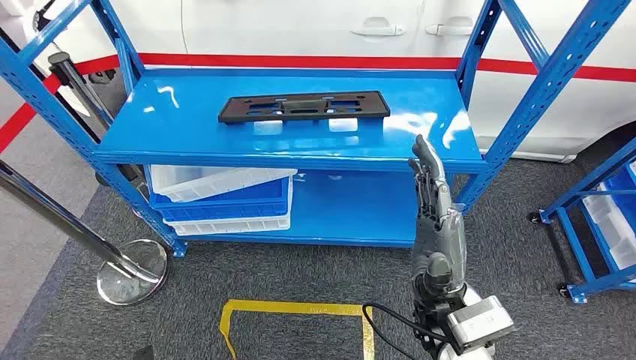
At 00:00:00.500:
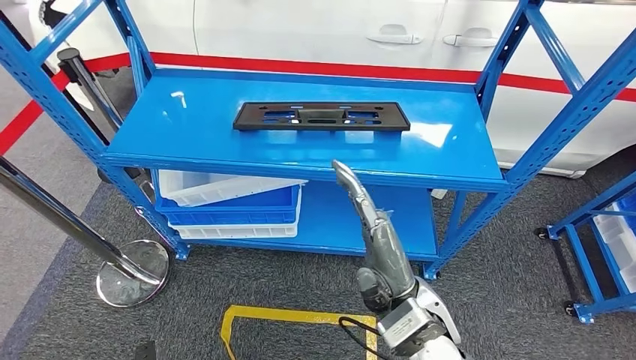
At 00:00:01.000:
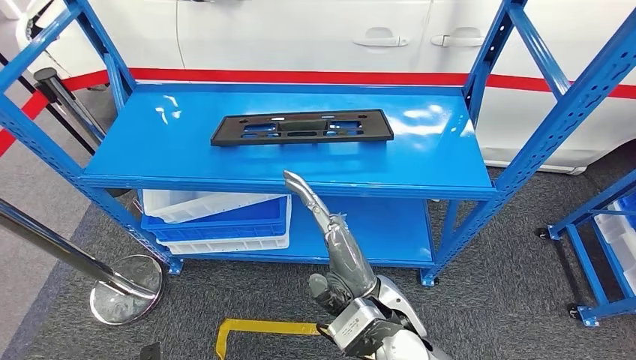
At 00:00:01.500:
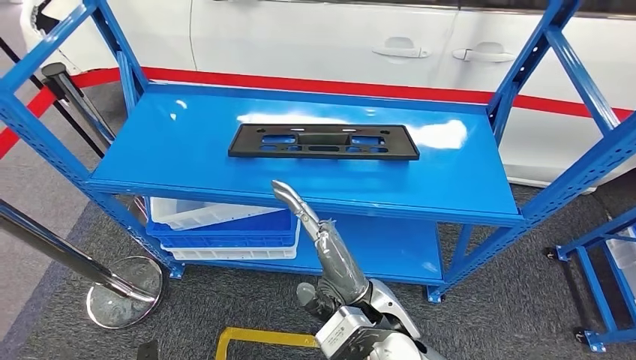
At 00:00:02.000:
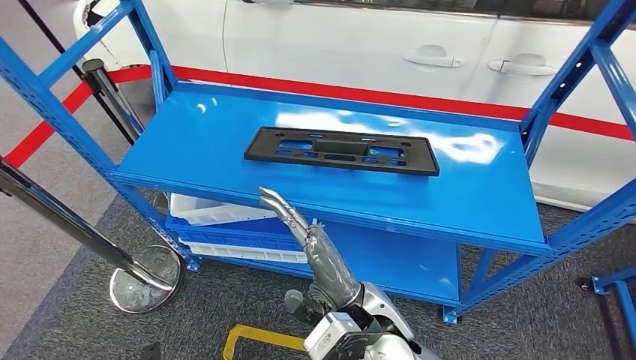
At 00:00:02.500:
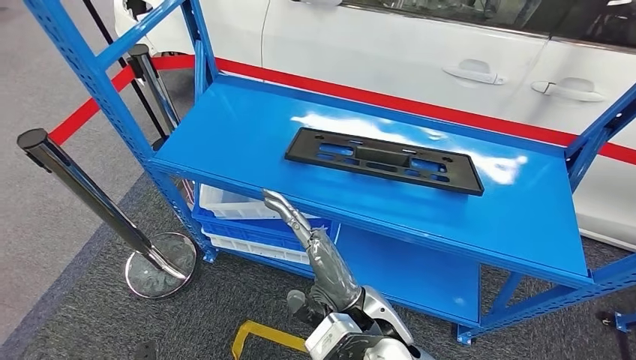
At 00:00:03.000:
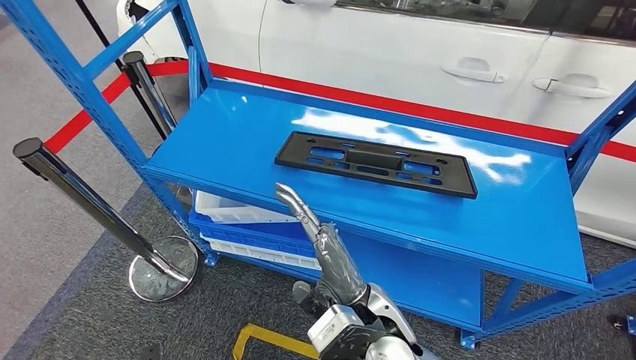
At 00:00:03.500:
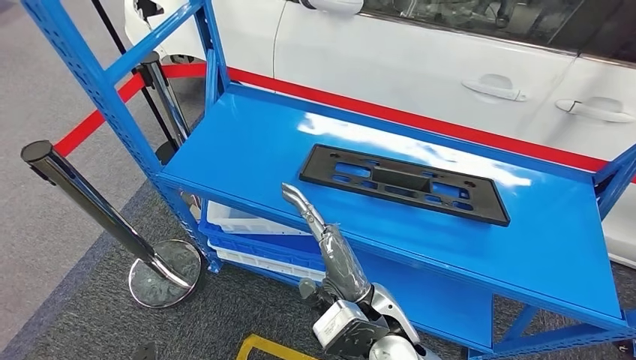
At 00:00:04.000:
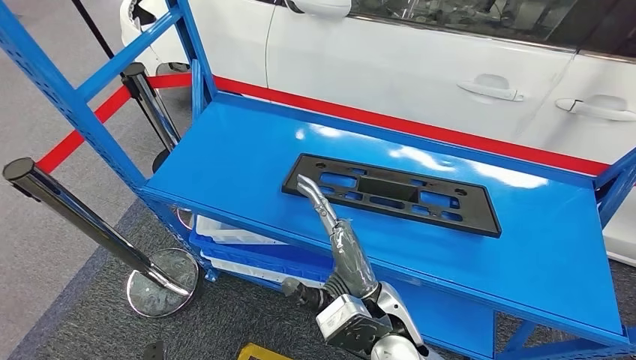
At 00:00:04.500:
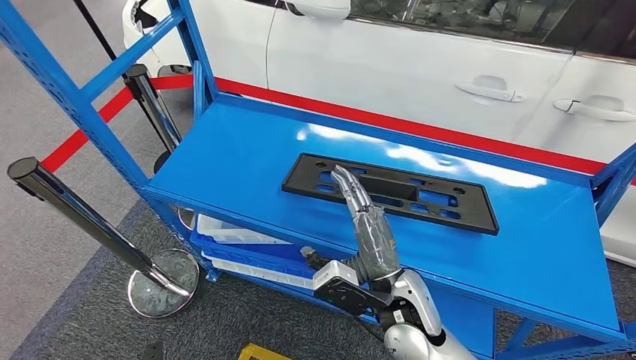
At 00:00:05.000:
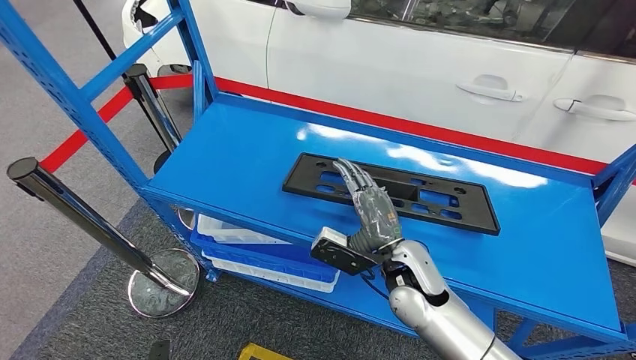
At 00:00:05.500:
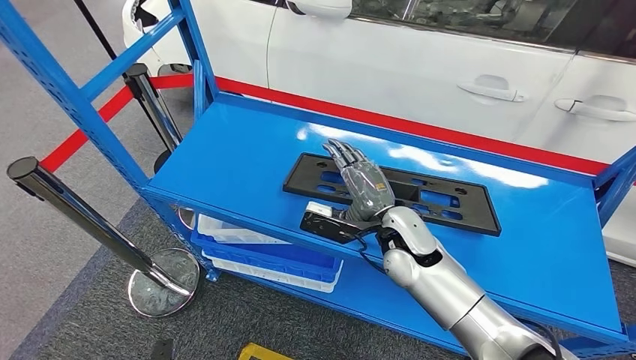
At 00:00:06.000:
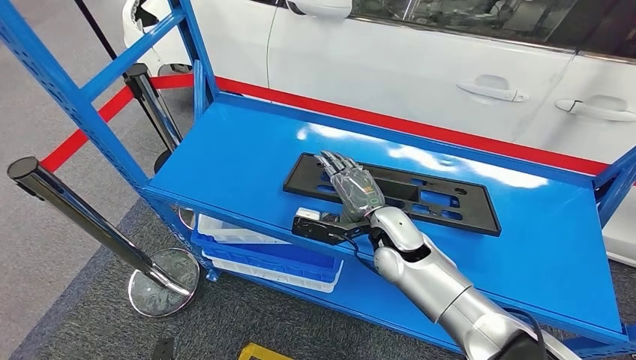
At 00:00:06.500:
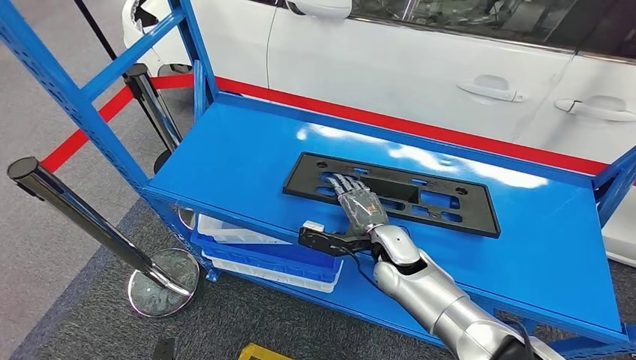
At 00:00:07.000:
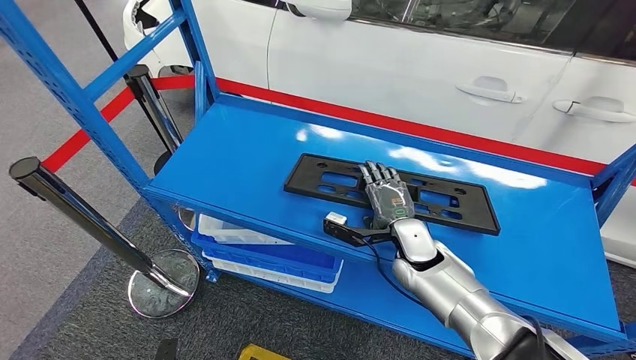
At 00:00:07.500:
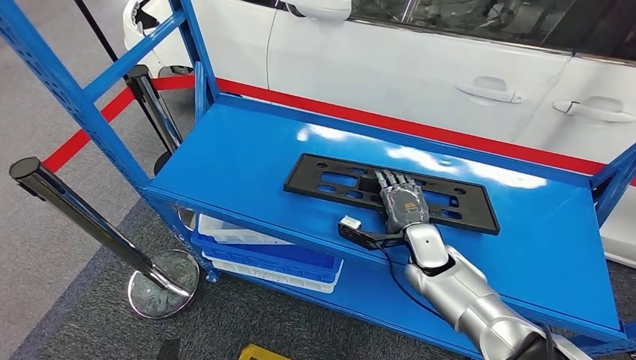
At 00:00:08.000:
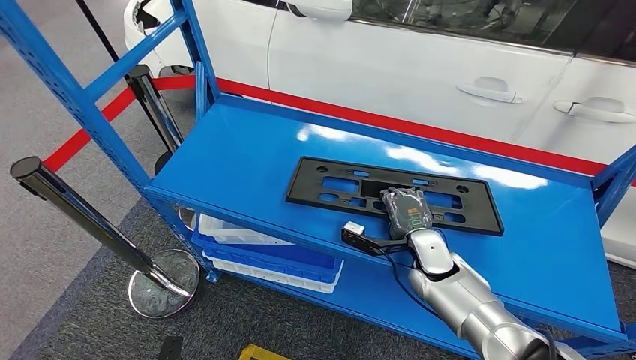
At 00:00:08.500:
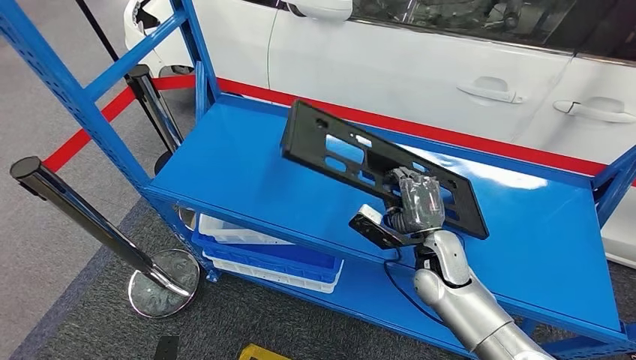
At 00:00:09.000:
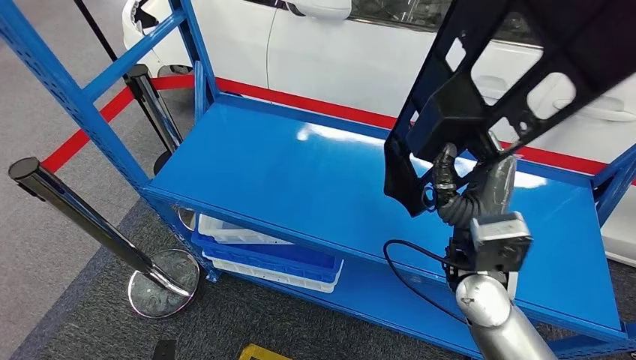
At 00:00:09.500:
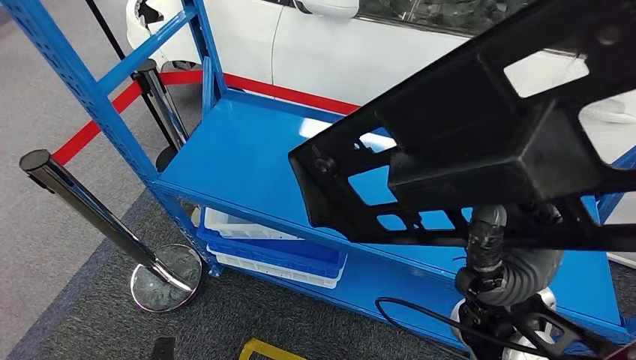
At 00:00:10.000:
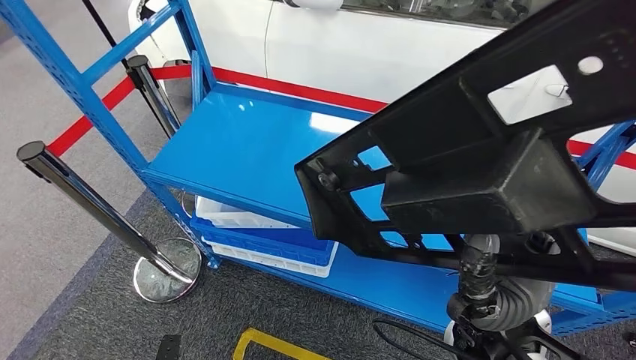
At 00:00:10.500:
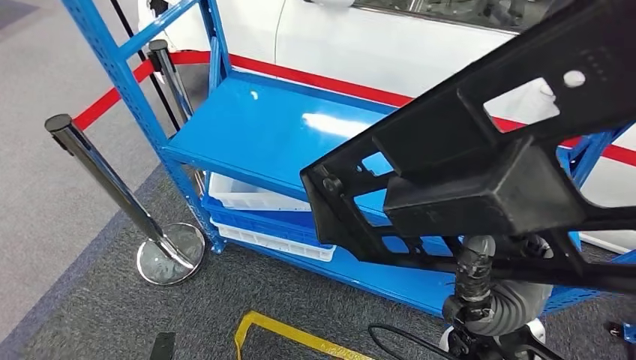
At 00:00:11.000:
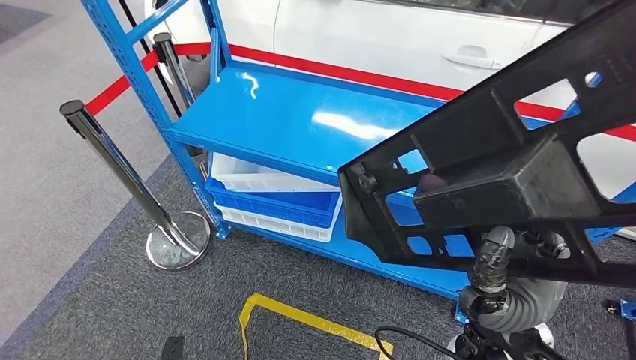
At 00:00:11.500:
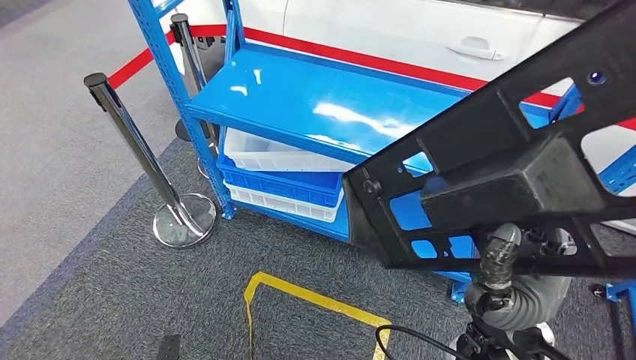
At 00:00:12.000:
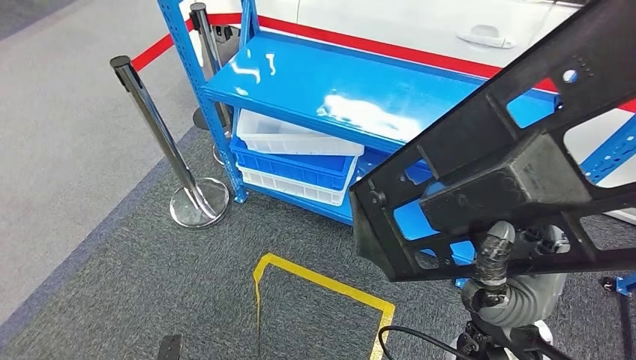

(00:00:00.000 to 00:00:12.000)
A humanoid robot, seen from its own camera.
Step, 00:00:00.000 - 00:00:11.500: Pick up the large material from the shelf.
00:00:04.000 - 00:00:06.000: The right hand is displaced forward by about 15 cm.
00:00:06.000 - 00:00:08.000: The right hand travels to the right and downward by roughly 10 cm.

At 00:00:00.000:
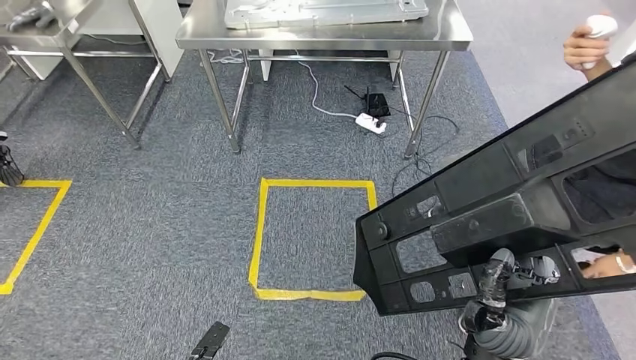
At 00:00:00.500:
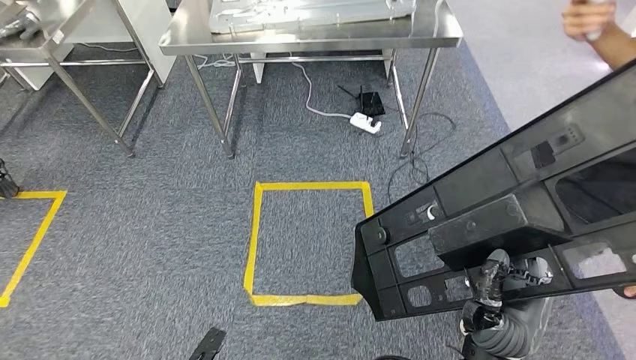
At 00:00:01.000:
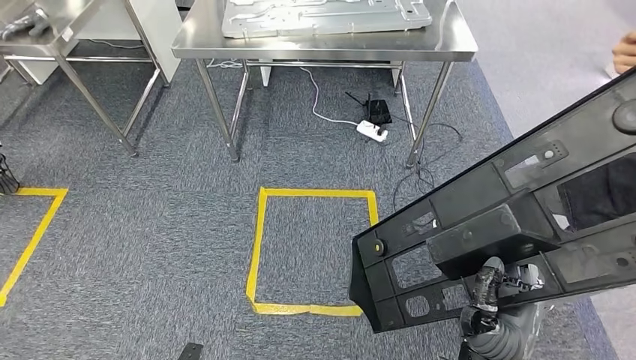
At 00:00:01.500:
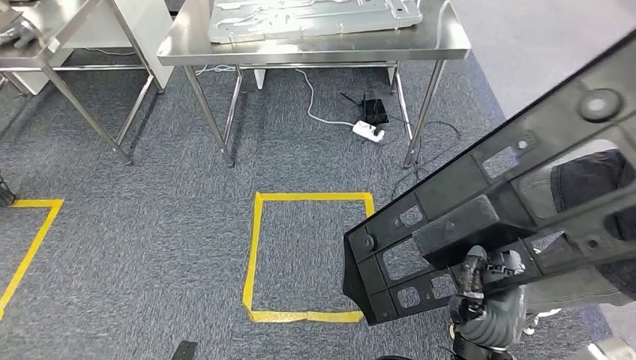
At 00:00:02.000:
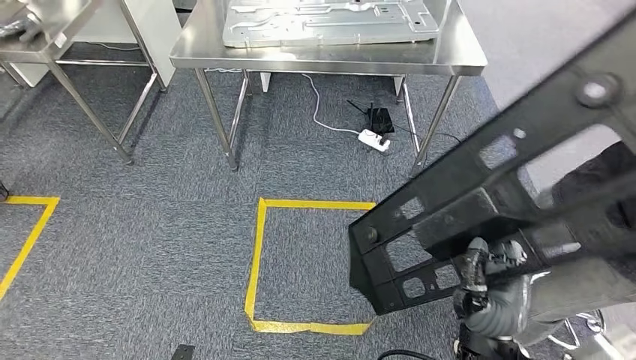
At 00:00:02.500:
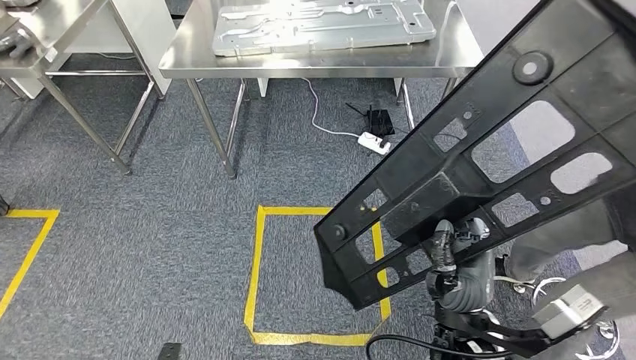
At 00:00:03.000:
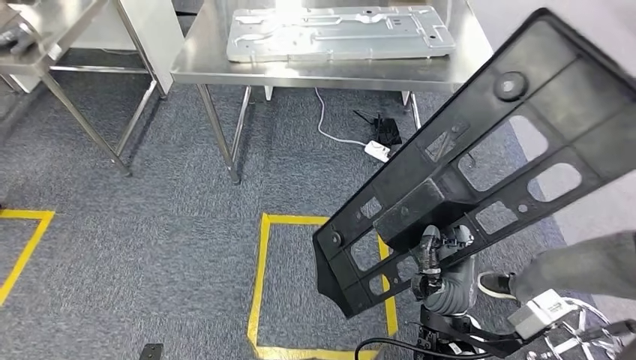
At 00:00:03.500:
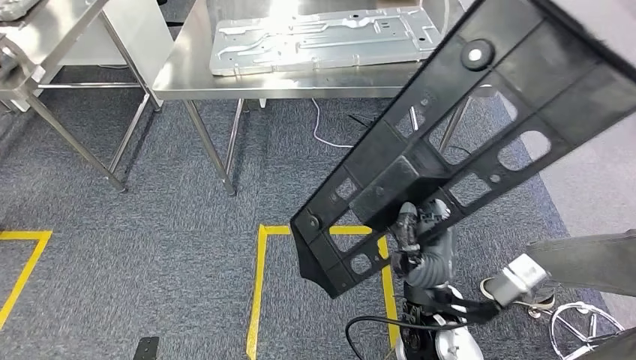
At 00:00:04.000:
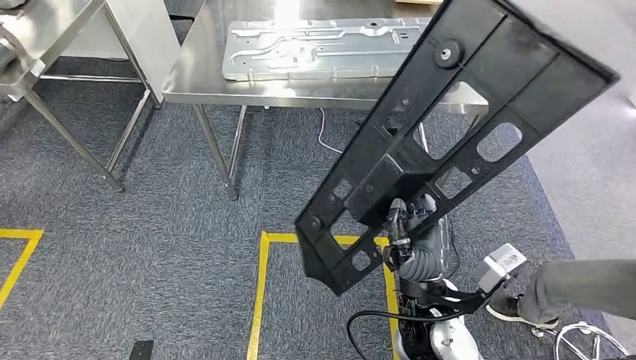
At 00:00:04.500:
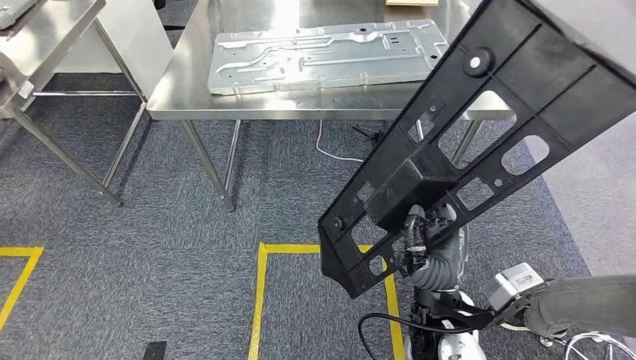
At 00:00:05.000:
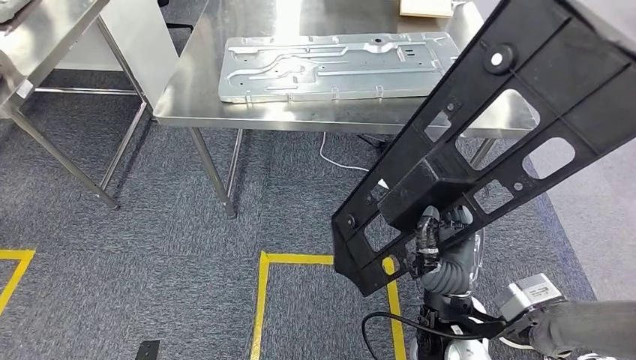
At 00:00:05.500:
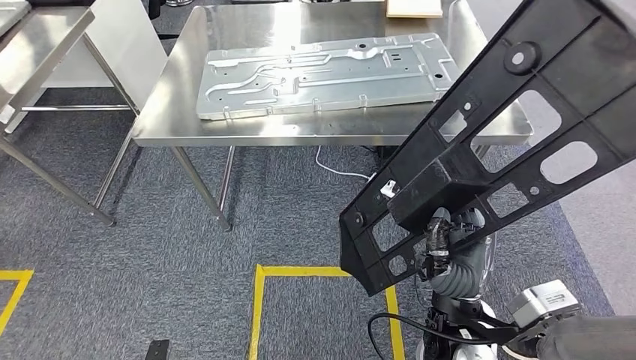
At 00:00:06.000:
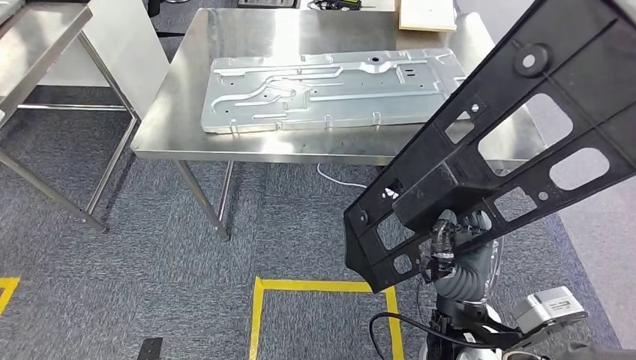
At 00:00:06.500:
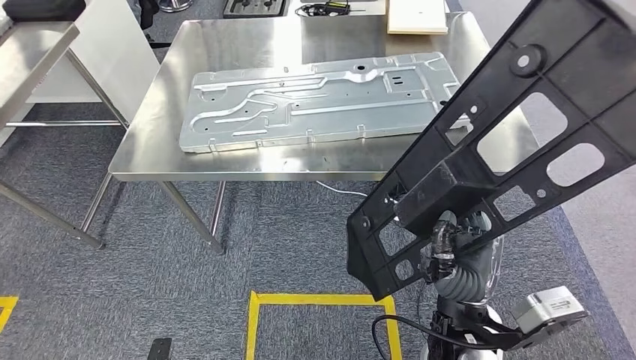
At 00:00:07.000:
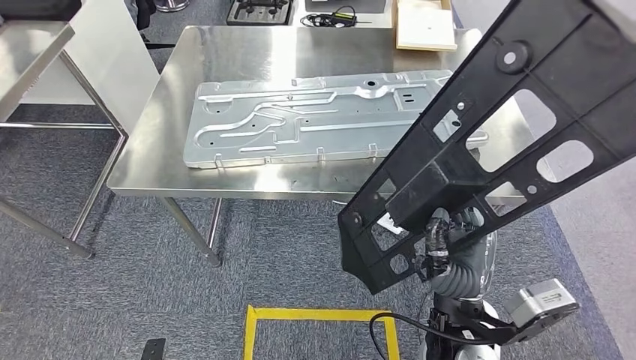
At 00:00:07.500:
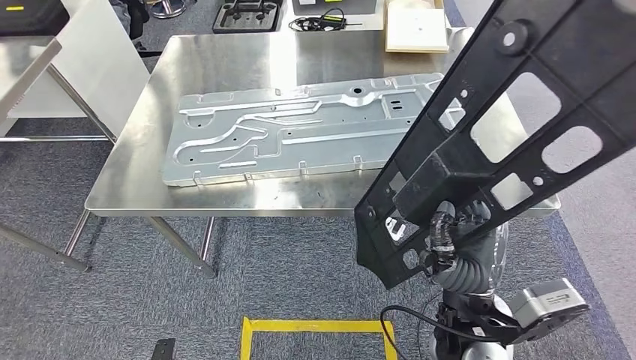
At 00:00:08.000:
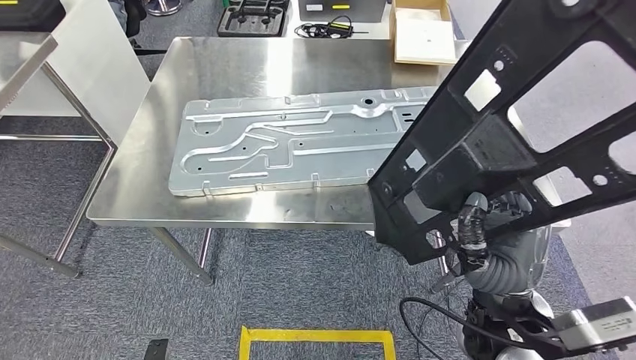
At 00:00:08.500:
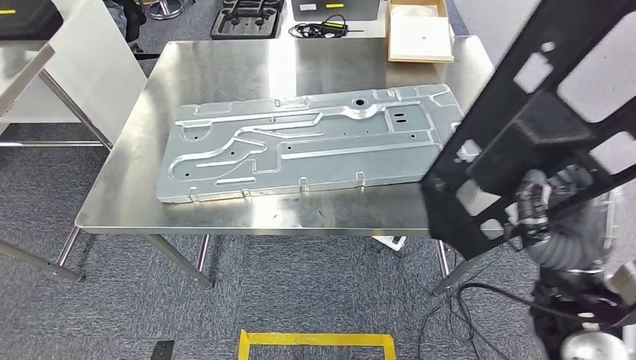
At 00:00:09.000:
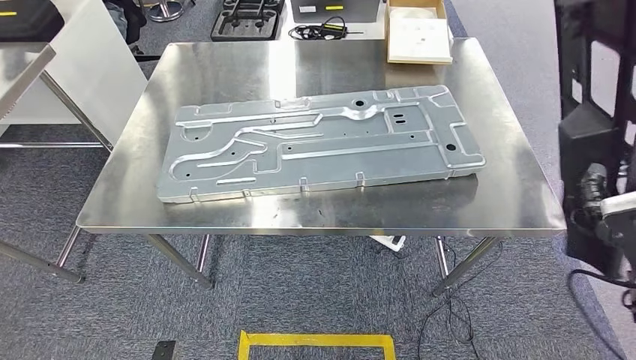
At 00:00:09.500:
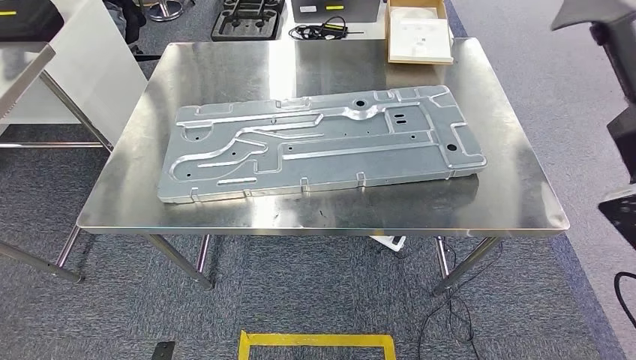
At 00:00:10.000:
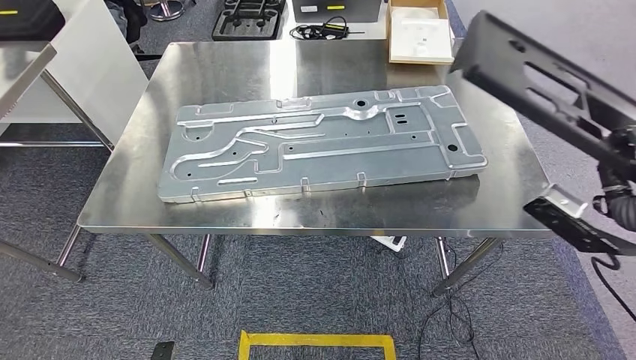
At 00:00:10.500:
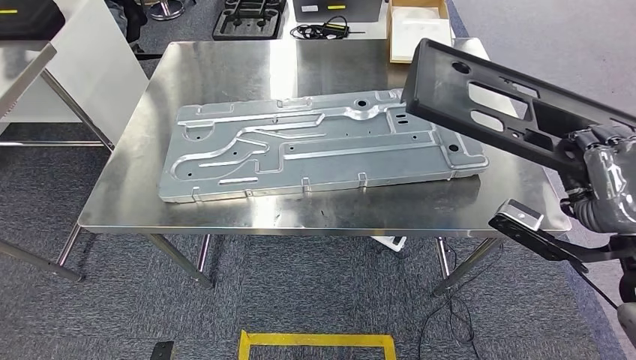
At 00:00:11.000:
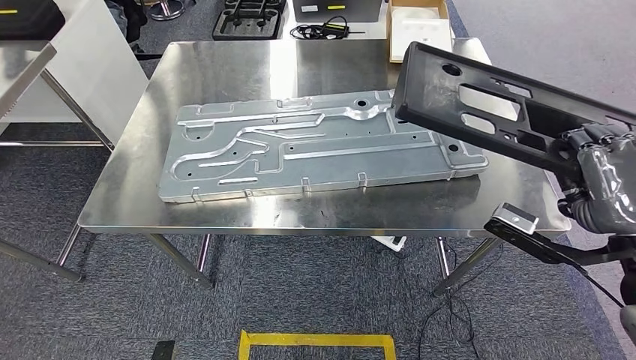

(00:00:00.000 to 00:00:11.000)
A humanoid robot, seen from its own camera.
Step, 00:00:00.000 - 00:00:06.500: Move the large material to the workbench.
